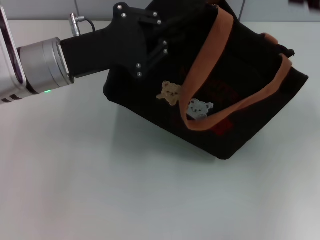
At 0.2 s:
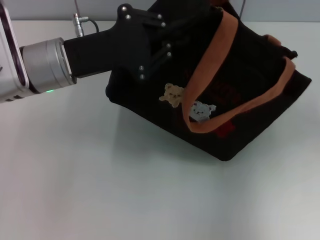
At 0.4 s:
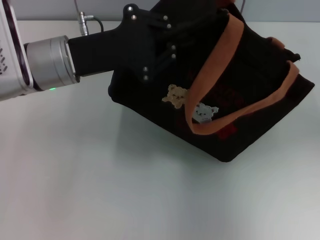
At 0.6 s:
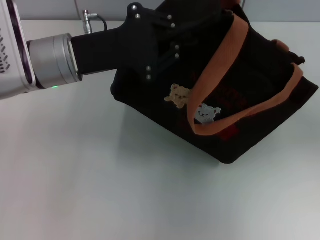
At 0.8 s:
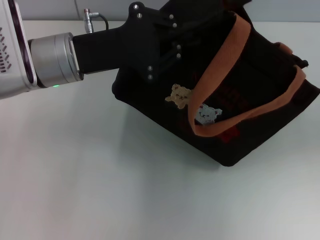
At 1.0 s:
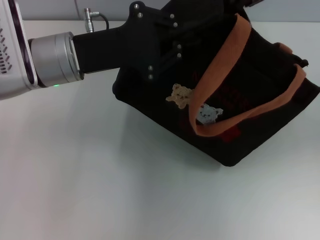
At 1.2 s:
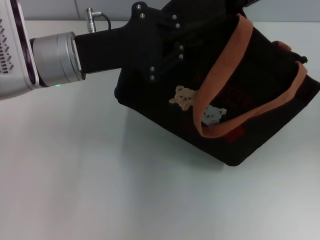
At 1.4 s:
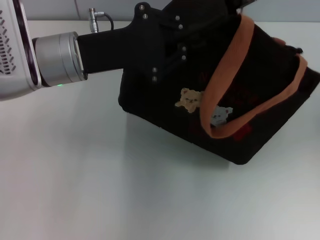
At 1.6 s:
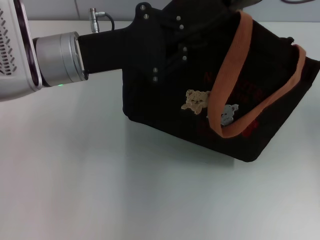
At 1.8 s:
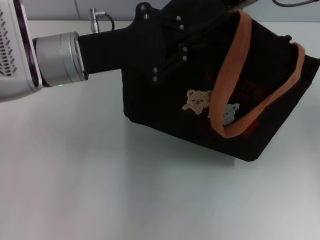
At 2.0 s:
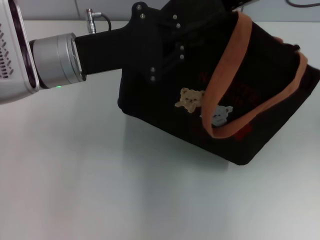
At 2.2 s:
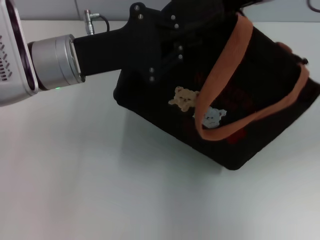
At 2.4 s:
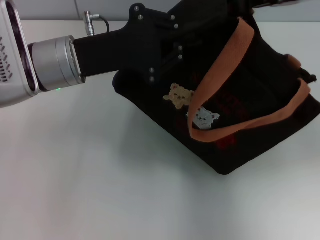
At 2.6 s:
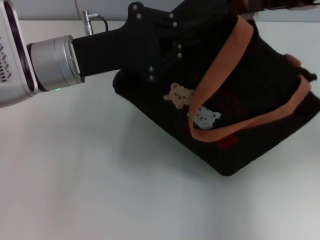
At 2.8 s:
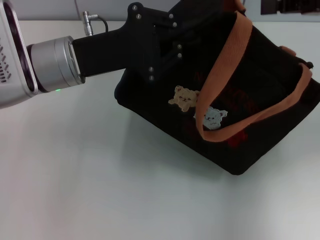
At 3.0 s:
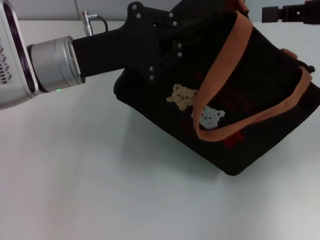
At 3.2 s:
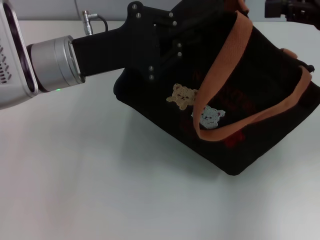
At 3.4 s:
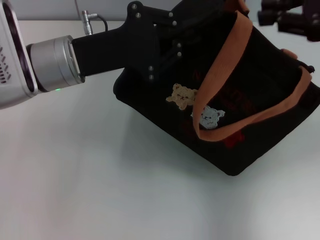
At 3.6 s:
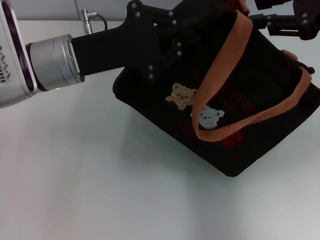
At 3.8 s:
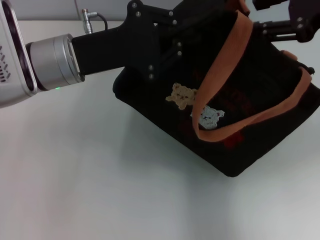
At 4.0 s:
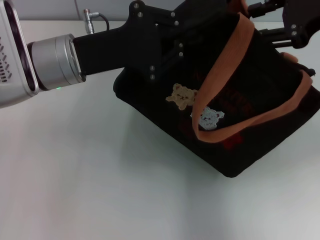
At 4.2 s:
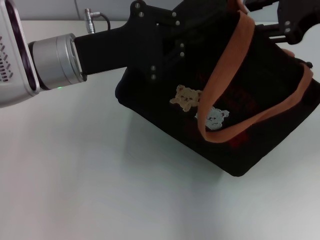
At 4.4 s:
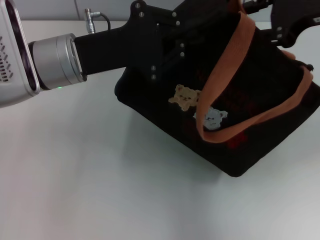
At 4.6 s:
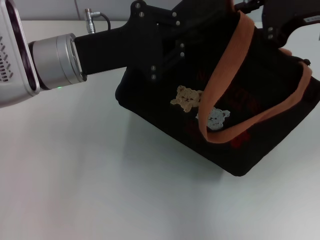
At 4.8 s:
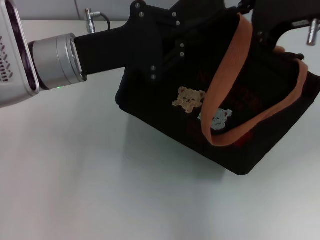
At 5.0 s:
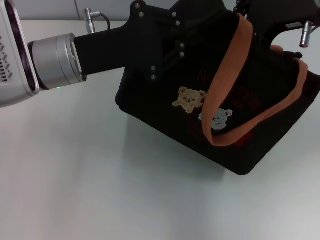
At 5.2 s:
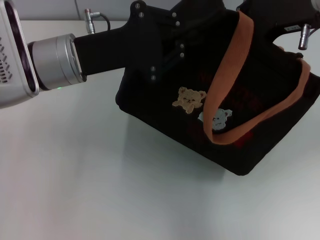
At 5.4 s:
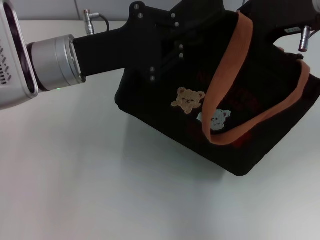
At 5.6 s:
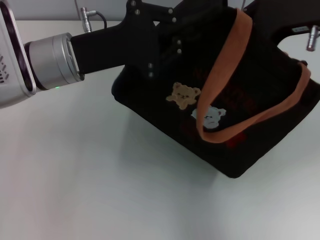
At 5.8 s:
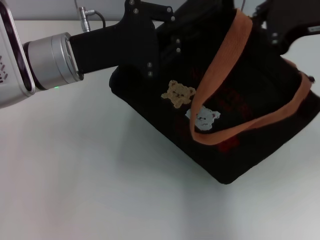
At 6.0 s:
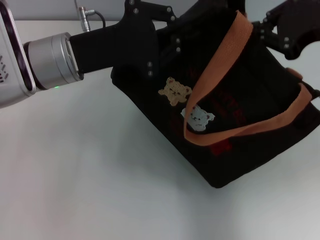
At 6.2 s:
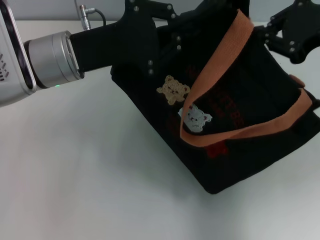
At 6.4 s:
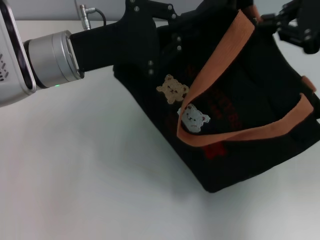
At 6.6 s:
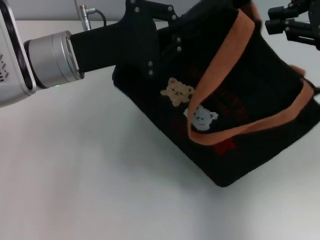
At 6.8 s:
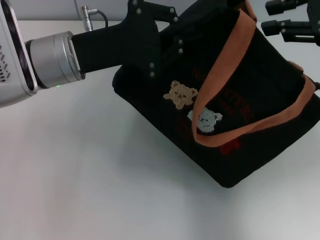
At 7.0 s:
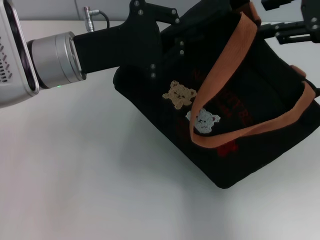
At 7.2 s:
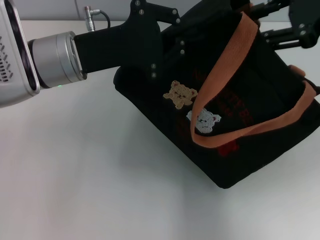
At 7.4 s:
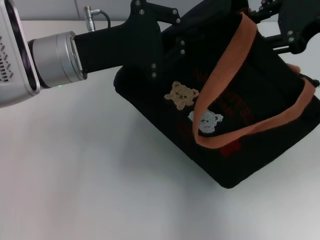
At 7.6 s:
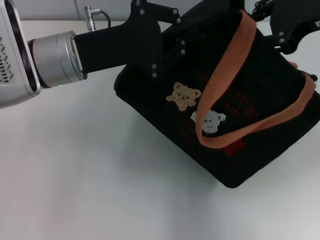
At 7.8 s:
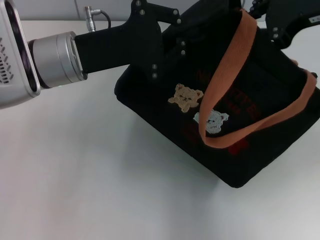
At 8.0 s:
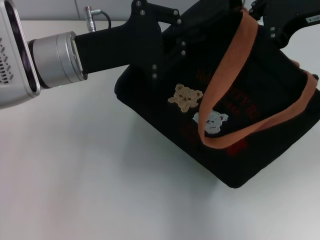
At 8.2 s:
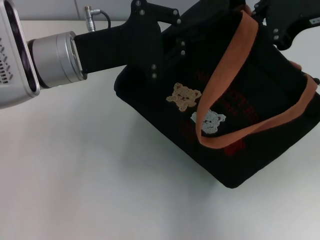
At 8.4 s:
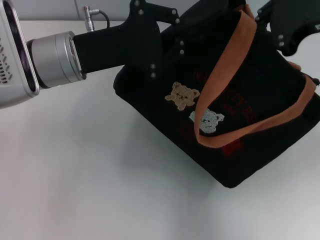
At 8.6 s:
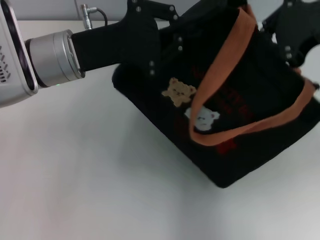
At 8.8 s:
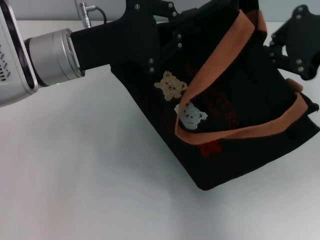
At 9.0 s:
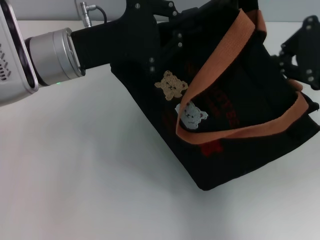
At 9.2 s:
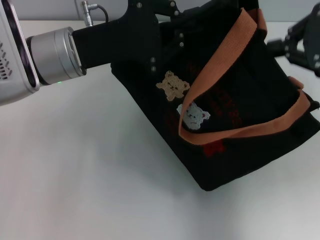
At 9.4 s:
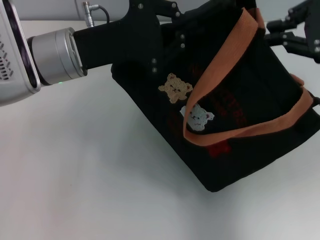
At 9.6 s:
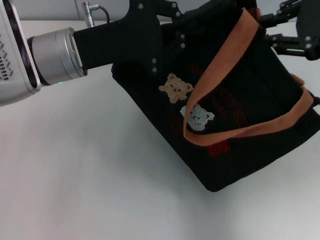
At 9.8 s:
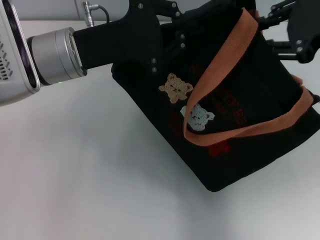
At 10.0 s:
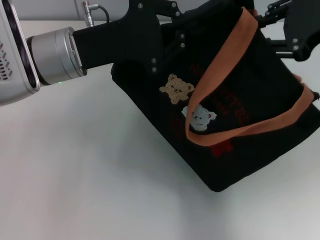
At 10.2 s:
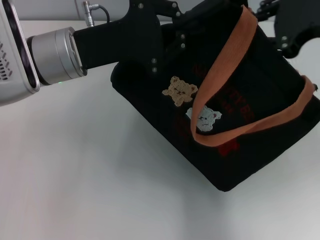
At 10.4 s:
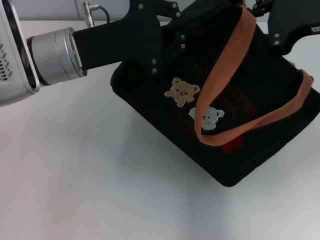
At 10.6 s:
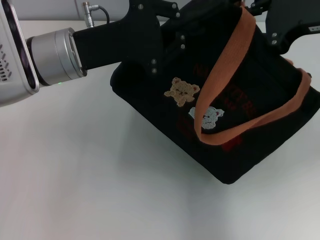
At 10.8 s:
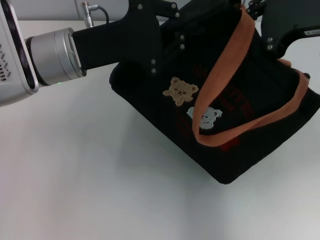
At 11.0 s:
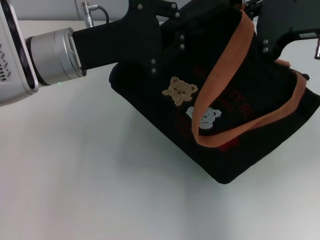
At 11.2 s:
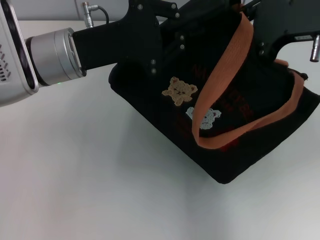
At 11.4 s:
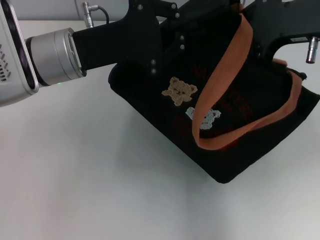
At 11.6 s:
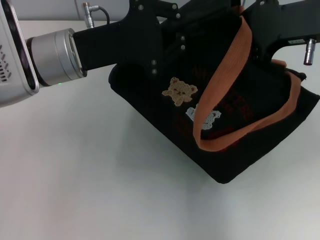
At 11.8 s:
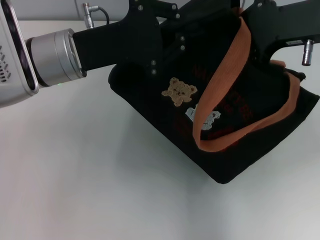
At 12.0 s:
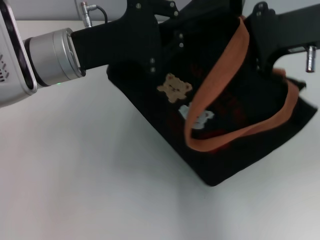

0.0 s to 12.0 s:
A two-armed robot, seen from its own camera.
0.0 to 1.6 s: The right gripper is displaced to the left and forward by roughly 15 cm, and closes.
1.6 to 3.0 s: The right gripper travels to the right and backward by about 15 cm, and closes.
3.0 to 4.4 s: The right gripper heads to the left, covering some 5 cm, and opens.
4.4 to 6.0 s: The right gripper closes.
6.0 to 7.6 s: The right gripper opens.
7.6 to 9.0 s: The right gripper closes.
9.0 to 10.4 s: The right gripper opens up.
10.4 to 12.0 s: The right gripper closes its fingers.

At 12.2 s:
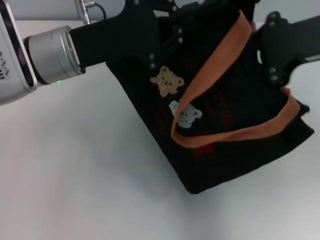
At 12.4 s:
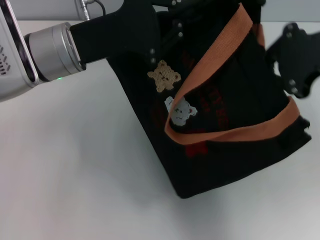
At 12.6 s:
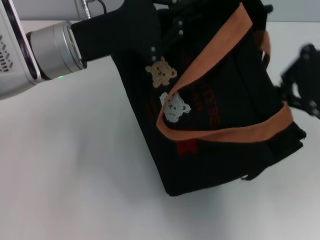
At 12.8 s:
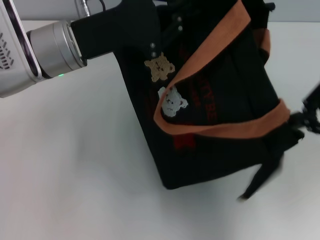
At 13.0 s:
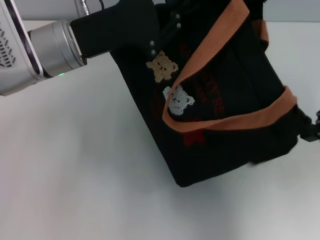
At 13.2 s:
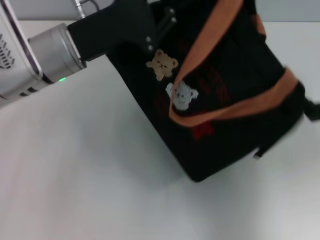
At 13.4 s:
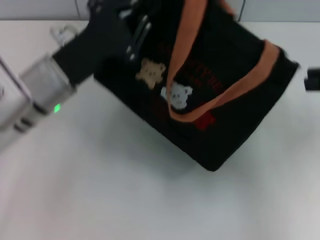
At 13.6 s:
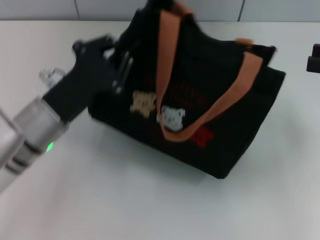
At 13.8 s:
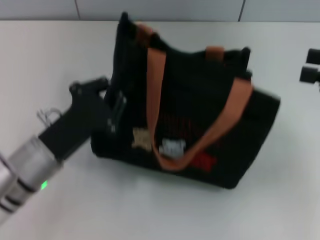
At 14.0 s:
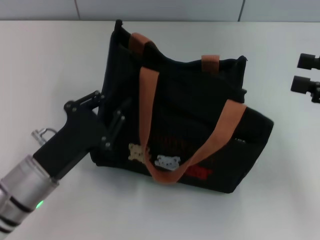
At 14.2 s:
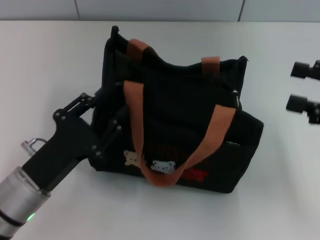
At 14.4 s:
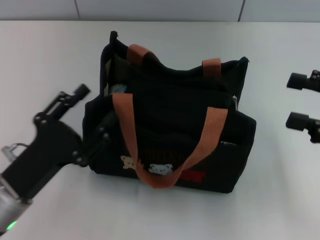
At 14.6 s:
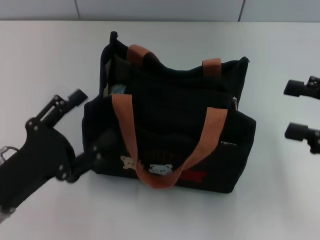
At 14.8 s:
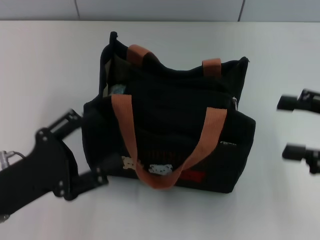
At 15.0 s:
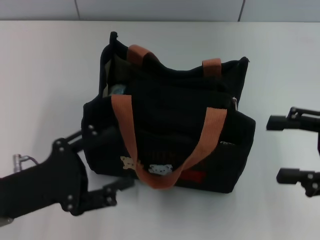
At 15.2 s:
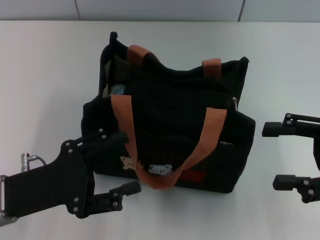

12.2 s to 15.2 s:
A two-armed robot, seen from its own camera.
Step, 13.4 to 14.2 s: Grab the bag with your left hand.
12.2 to 13.8 s: The left gripper shifts roughly 15 cm downward and backward; the right gripper is displaced to the right, downward and backward by some 15 cm, and opens up.
13.8 to 15.2 s: The left gripper shifts by some 5 cm, and opens. Meanwhile the right gripper moves some 5 cm, and opens its fingers.

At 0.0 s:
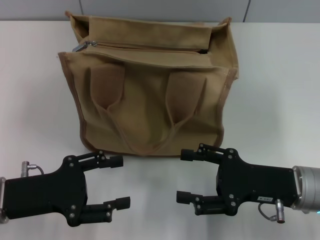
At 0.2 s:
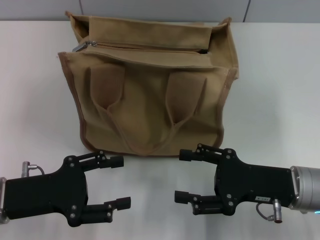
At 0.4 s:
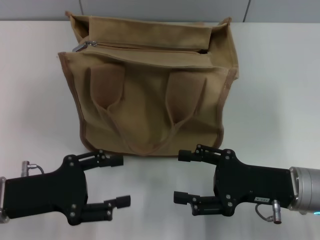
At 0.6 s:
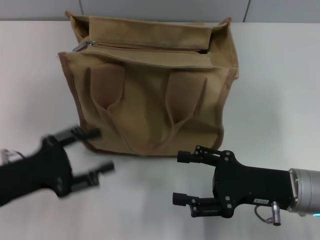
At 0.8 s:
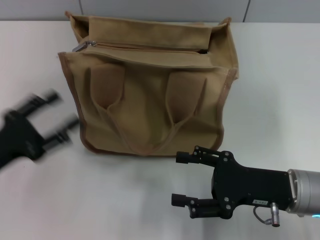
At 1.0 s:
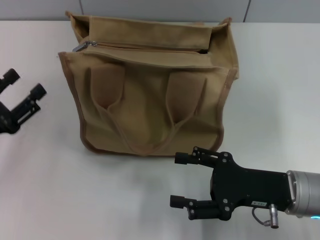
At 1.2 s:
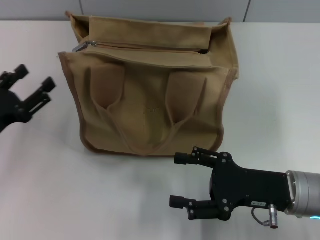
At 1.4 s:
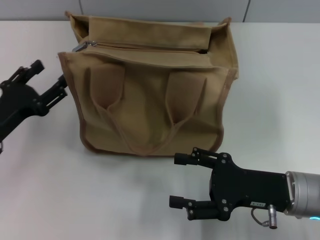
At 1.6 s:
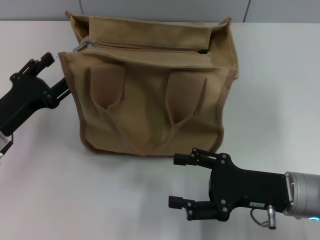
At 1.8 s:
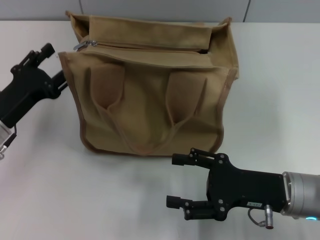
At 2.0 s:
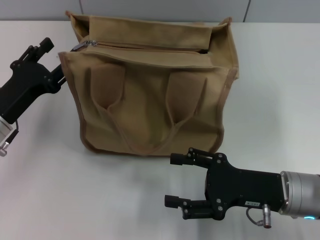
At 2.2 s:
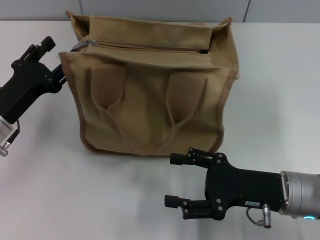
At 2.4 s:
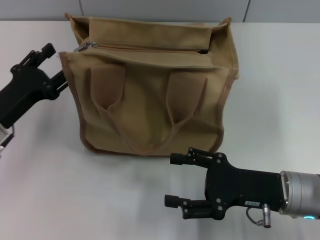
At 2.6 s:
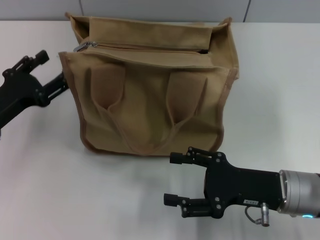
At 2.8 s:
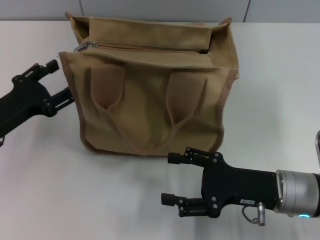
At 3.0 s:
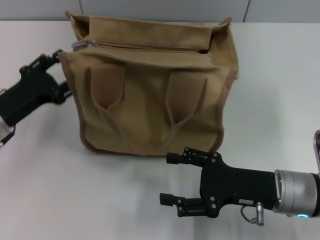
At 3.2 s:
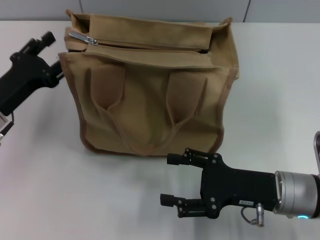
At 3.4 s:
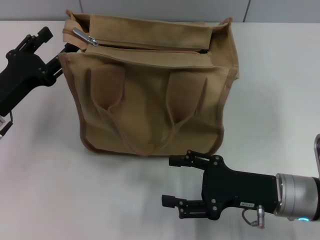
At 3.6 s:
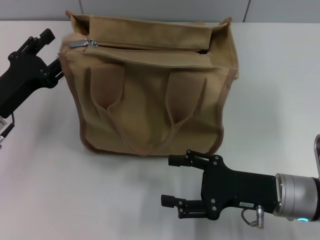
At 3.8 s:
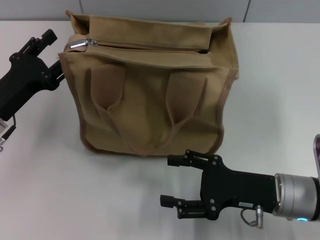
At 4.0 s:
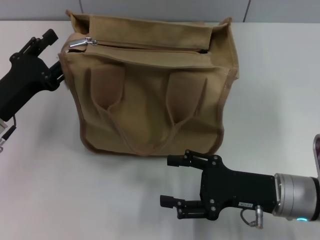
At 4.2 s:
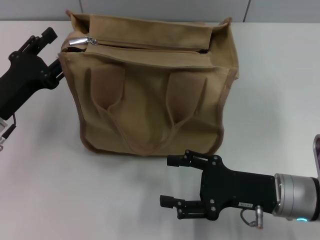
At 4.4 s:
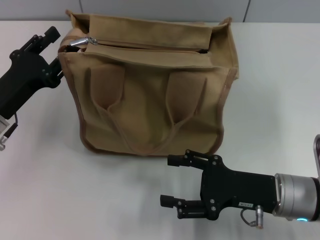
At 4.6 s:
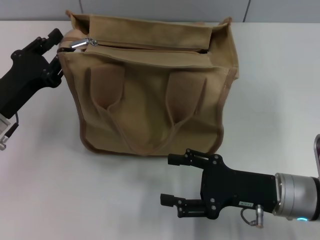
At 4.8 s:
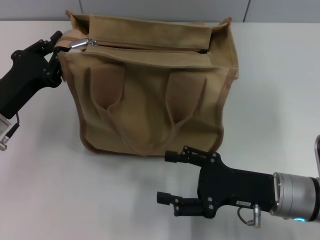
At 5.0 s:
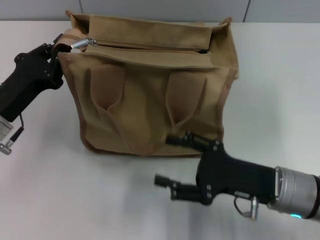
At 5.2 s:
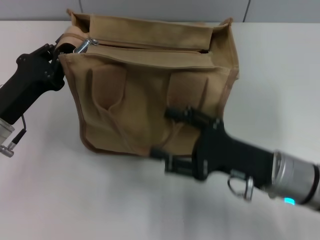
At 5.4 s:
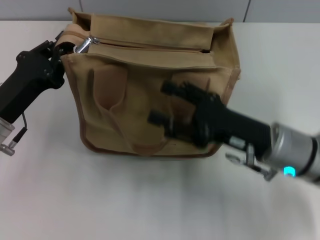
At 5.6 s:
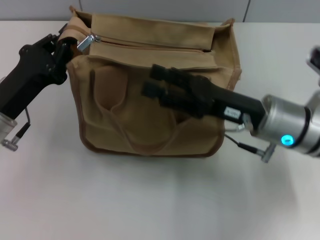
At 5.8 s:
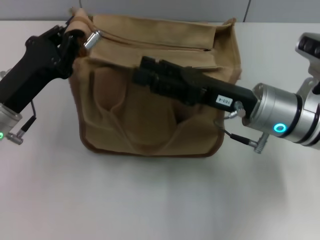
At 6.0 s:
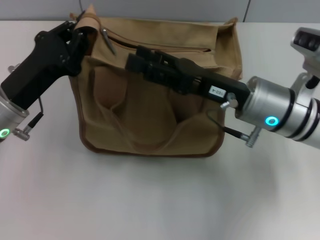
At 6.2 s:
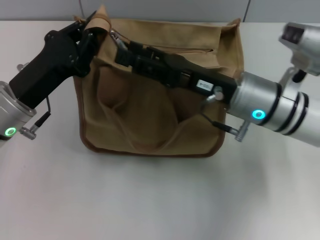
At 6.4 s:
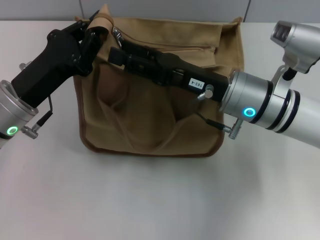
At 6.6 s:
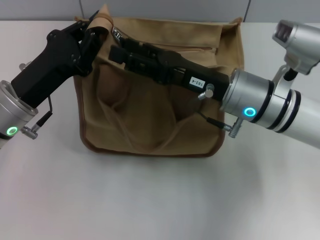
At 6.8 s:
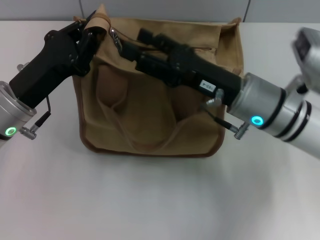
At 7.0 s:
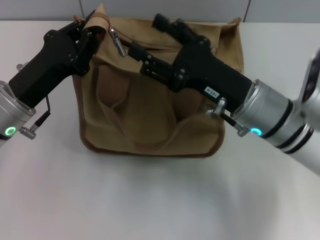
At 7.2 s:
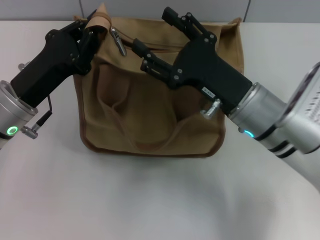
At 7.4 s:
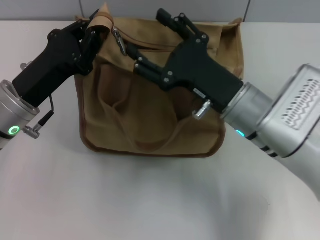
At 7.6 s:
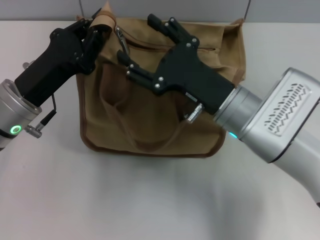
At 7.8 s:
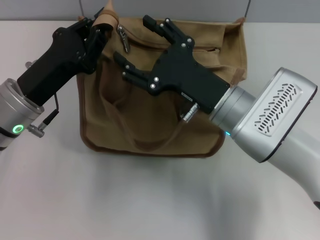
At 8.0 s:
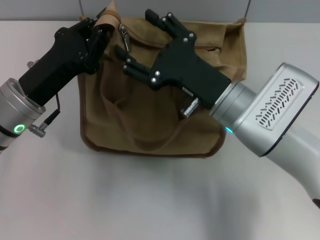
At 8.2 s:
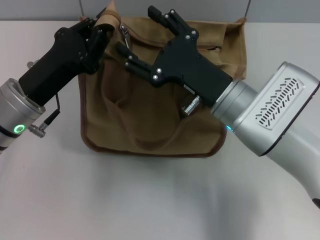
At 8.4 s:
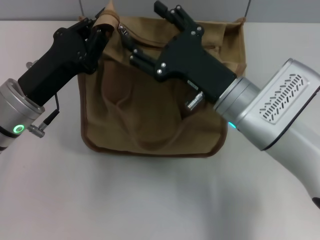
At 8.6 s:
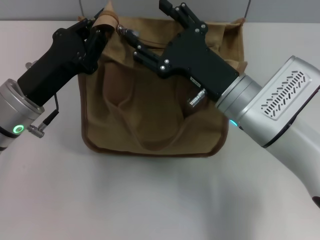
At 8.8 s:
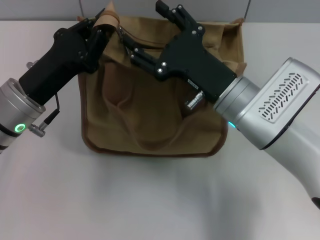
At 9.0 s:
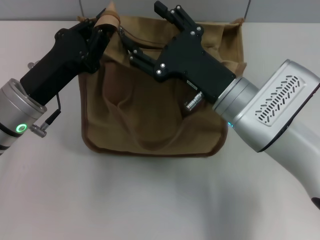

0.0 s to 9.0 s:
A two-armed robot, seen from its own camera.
0.0 to 1.6 s: The left gripper travels forward by roughly 5 cm.
1.6 to 4.4 s: The grippers move only a little.
4.4 to 6.0 s: The right gripper moves forward, upward and to the left, about 10 cm. Meanwhile the left gripper closes up.
7.6 to 9.0 s: The grippers make only small movements.
